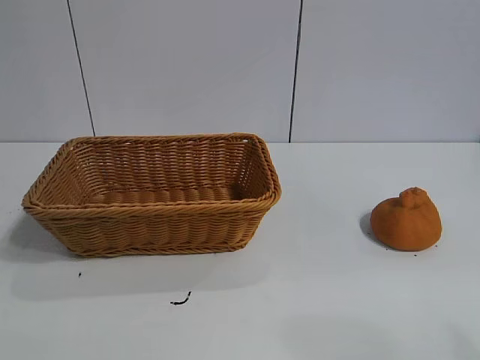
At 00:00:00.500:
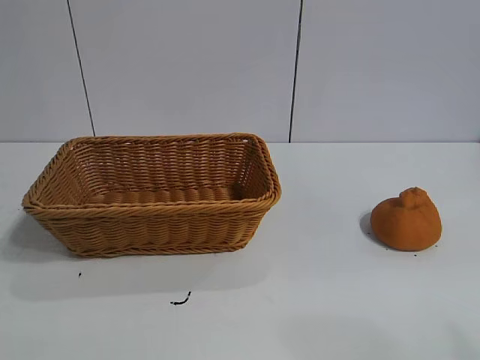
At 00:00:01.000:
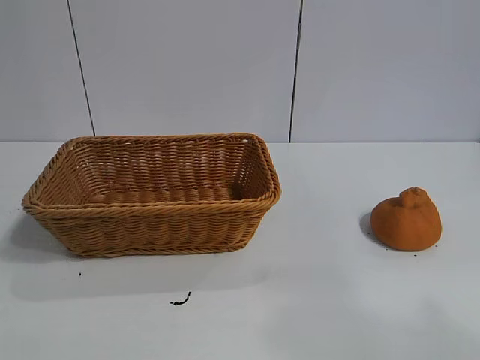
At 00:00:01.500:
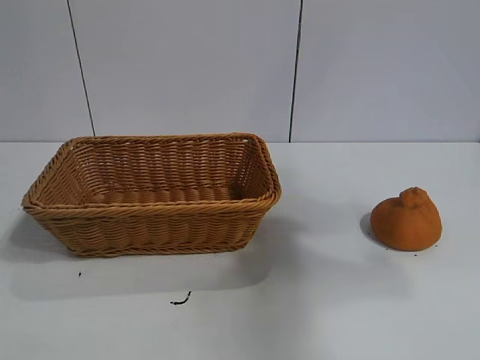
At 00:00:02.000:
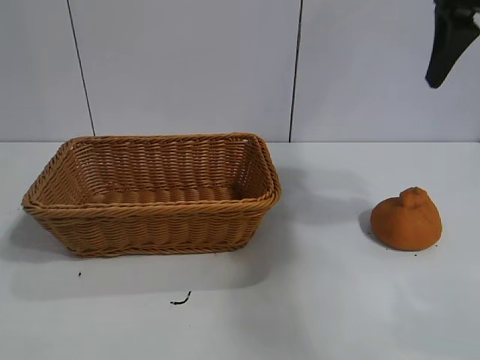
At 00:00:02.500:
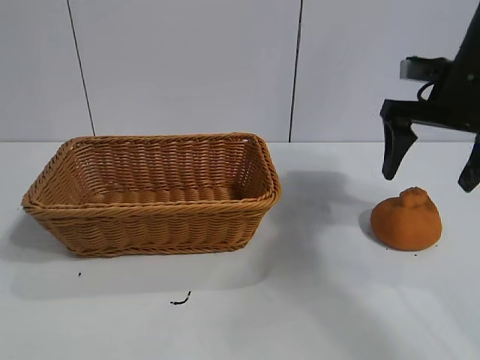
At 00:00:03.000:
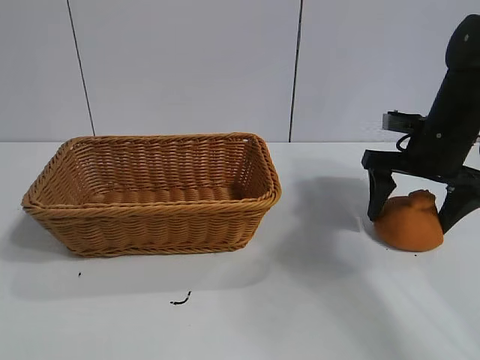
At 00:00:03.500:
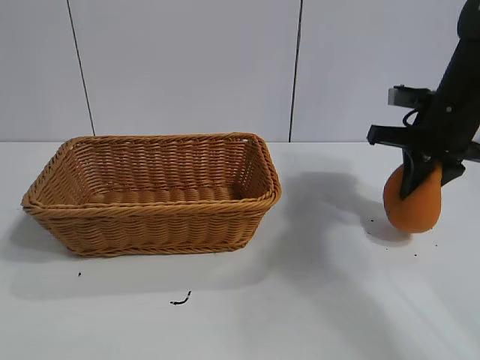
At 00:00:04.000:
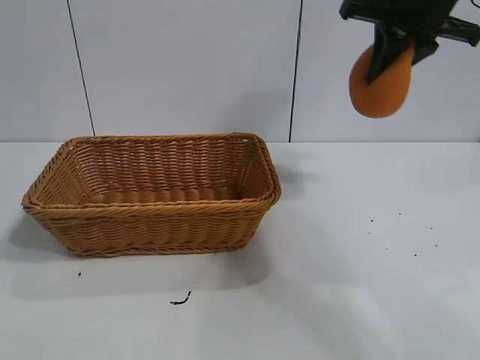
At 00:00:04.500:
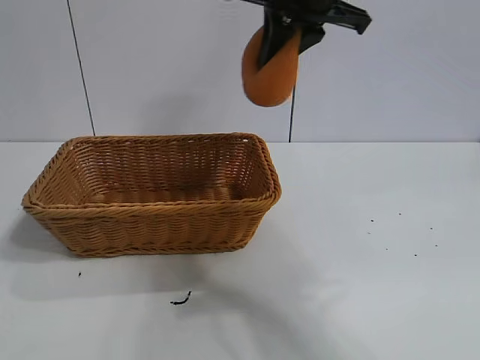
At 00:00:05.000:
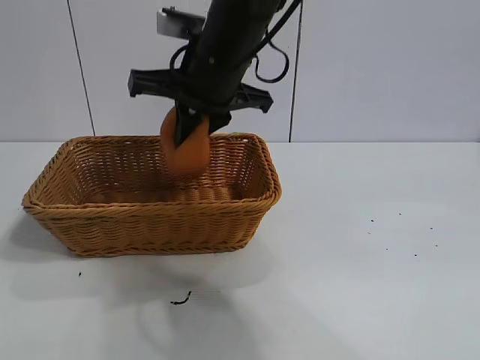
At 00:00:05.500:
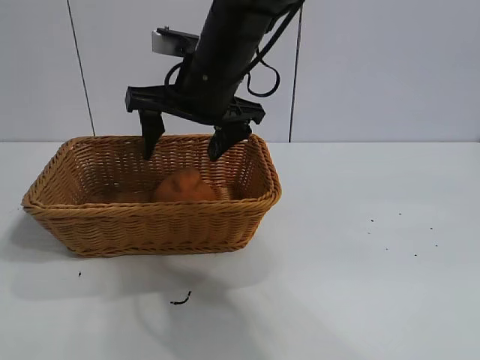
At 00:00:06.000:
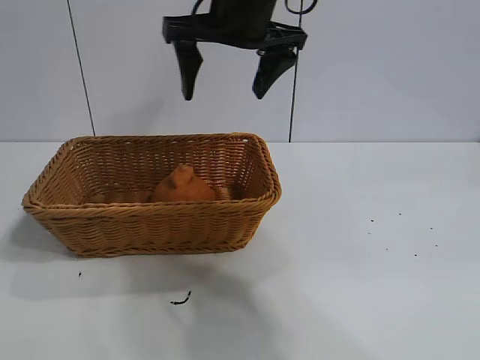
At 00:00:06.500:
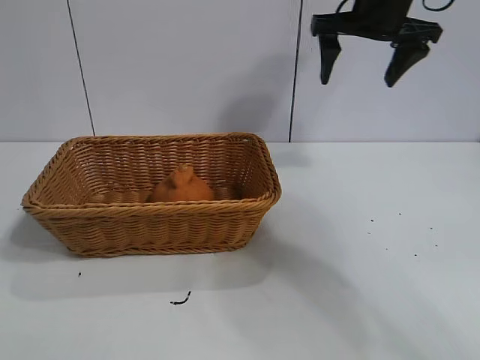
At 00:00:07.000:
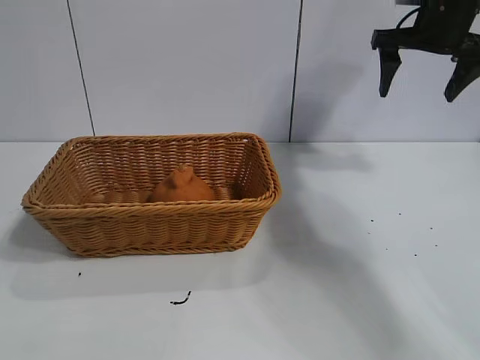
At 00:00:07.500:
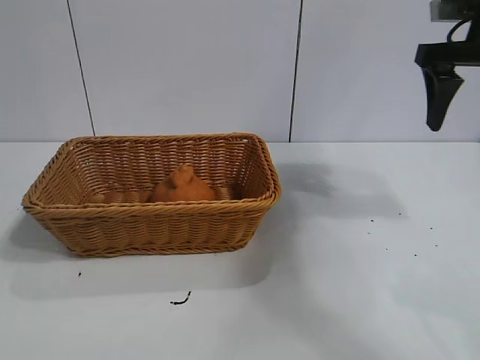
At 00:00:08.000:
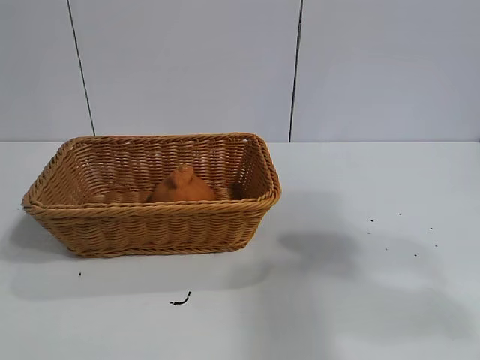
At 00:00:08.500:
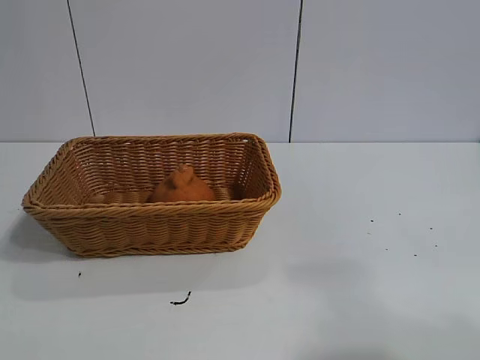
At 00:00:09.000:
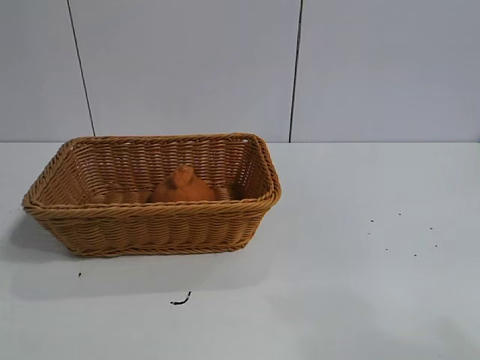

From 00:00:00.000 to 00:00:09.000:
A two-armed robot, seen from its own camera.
Task of the whole recording: pick up the orange and put it into the basket.
Step, from 00:00:00.000 to 00:00:03.000: Grasp the orange with right gripper.
Step, from 00:00:03.500 to 00:00:05.500: Place the orange in the basket with right gripper.
